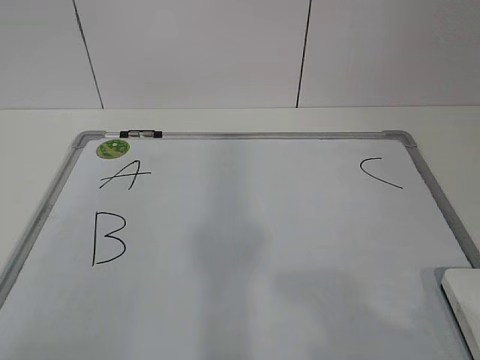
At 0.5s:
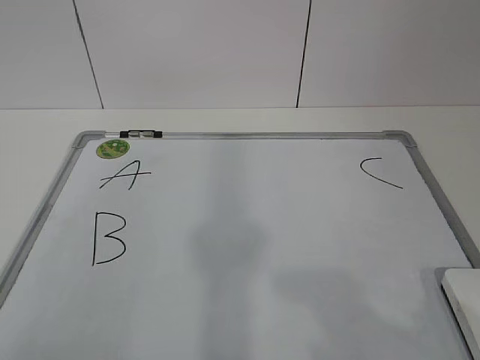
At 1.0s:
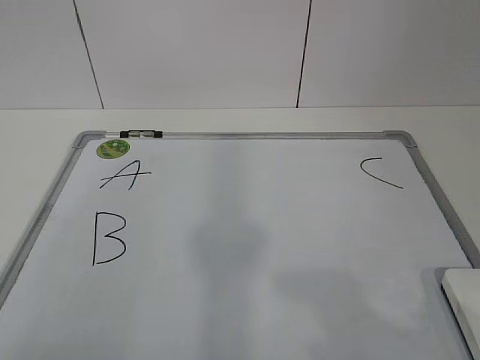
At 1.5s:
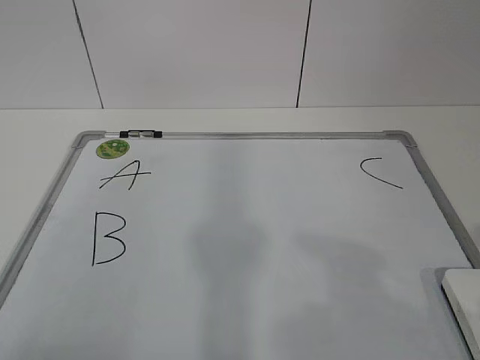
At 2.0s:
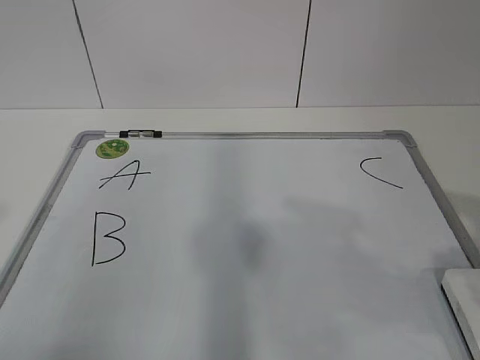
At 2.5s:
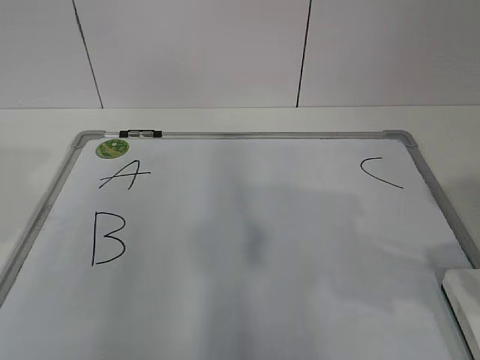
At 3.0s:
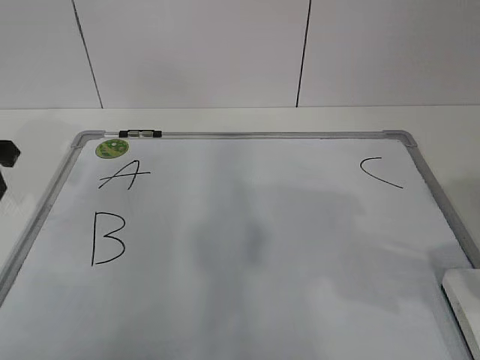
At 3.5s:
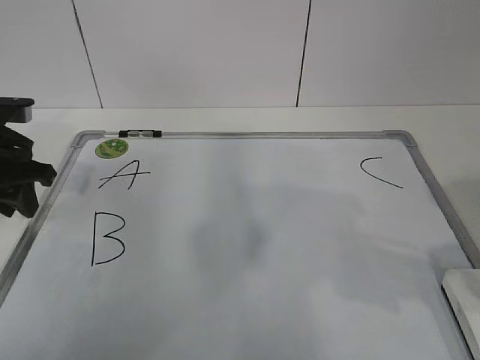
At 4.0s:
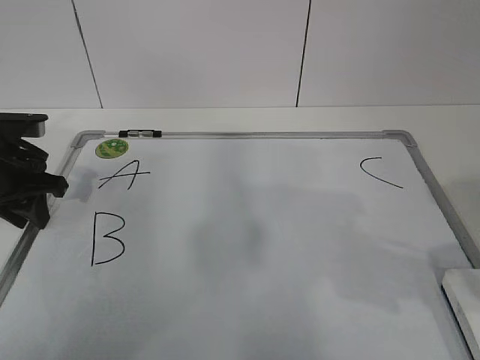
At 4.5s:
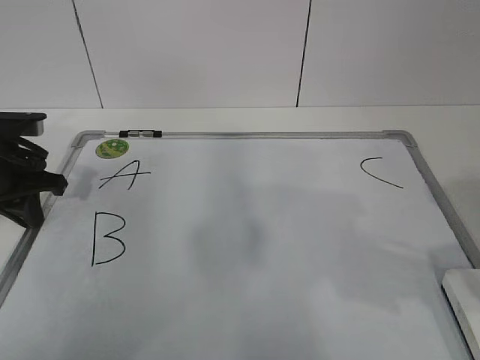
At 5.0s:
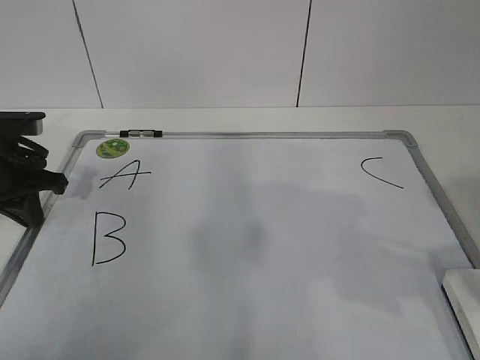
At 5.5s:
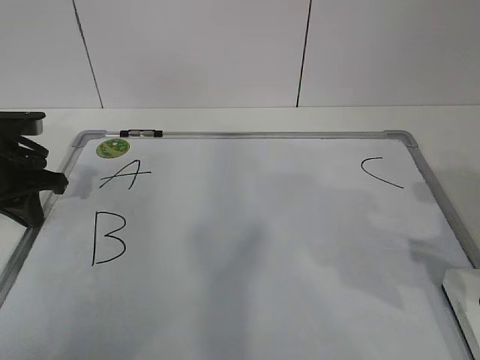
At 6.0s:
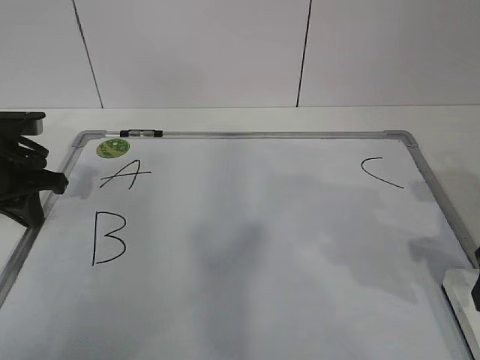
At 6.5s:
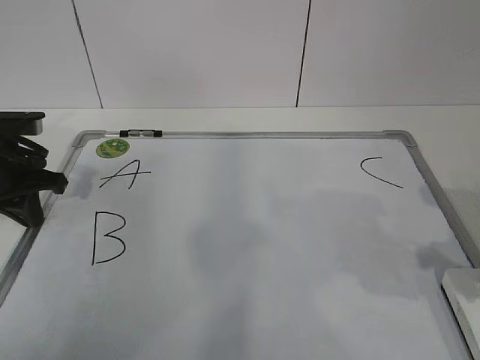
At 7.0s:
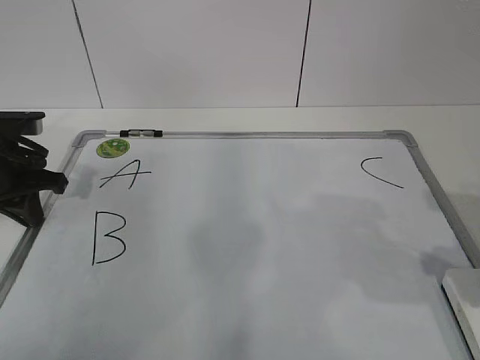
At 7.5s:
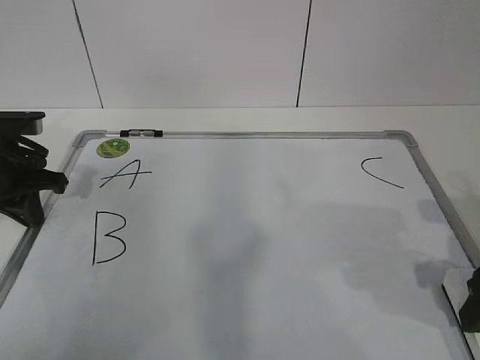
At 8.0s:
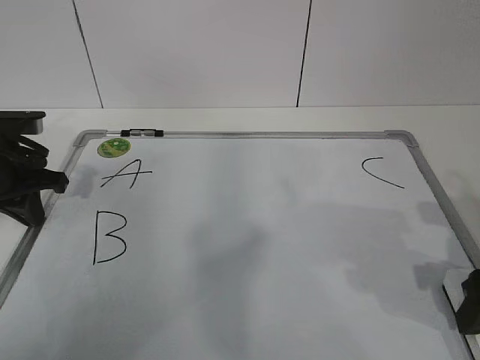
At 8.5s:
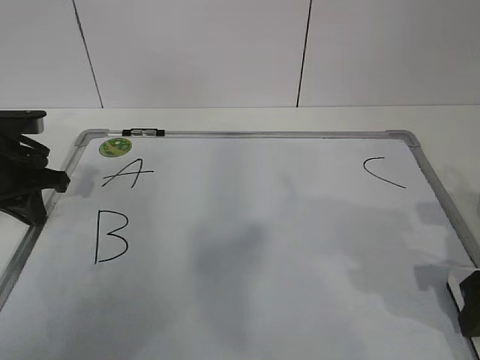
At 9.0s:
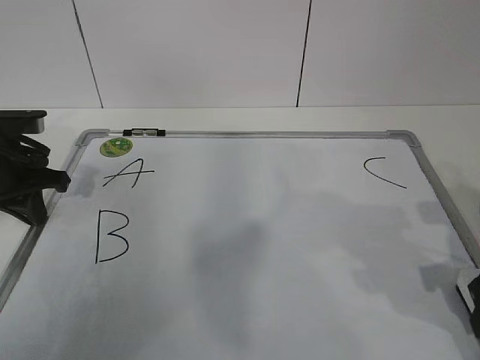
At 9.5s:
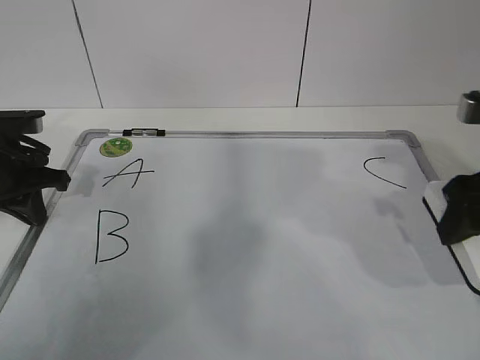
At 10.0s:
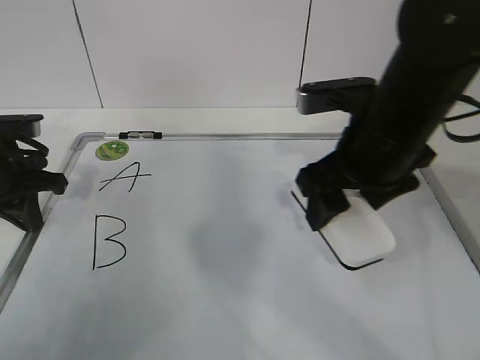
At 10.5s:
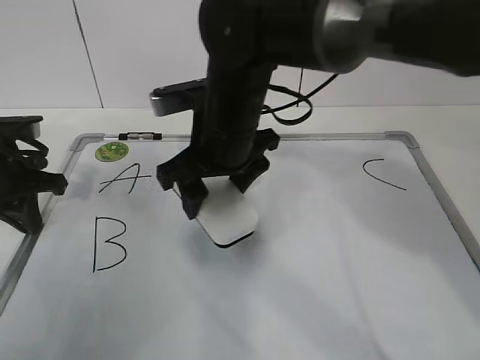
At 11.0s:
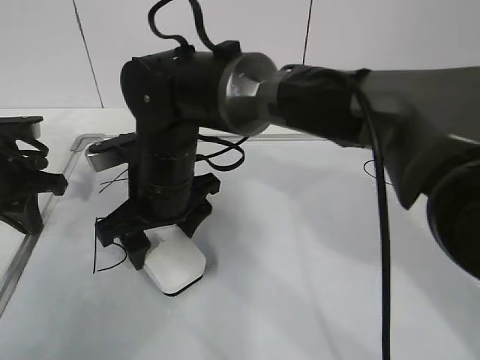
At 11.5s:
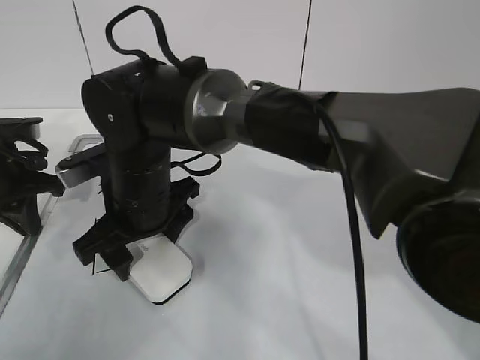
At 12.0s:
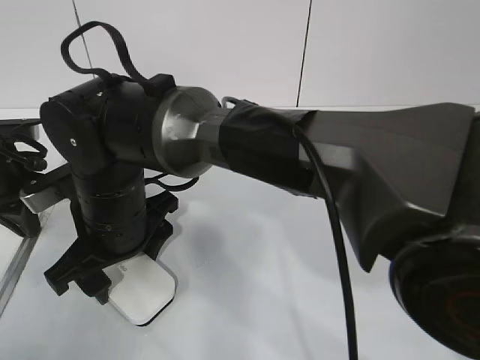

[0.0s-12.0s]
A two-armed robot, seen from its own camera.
Task of the whole recording: pick up the eraser on the blackboard and erase the letter "B".
Step, 0.0s to 3.5s: Hold the drawing board steady with your left hand.
2.0s to 4.0s: The left gripper shifts some 35 cm forward and downward. Meanwhile the right gripper ends up some 5 cm from where it was.
4.0s to 6.0s: The left gripper closes up.
6.0s to 8.0s: There are only small adjustments of the grippers.
8.0s to 10.0s: The right gripper travels to the left, forward and upward by some 20 cm, and closes up.
10.0s to 12.0s: The right gripper shifts about 25 cm to the left.

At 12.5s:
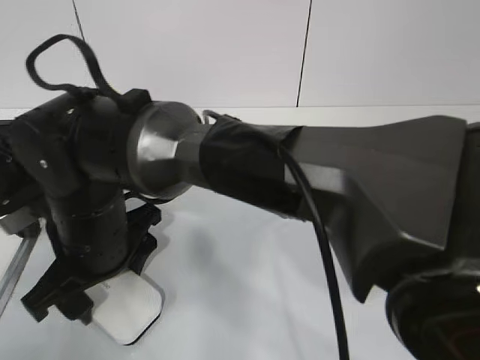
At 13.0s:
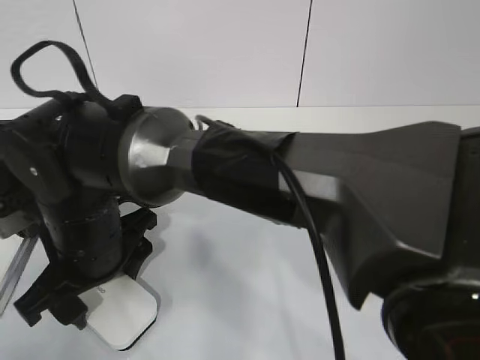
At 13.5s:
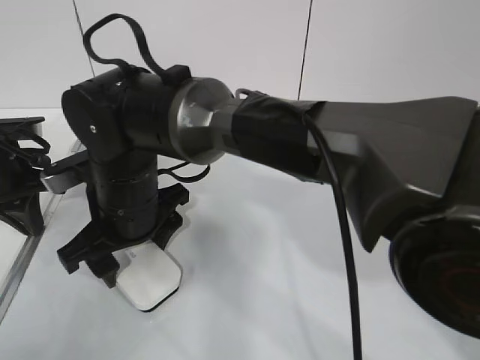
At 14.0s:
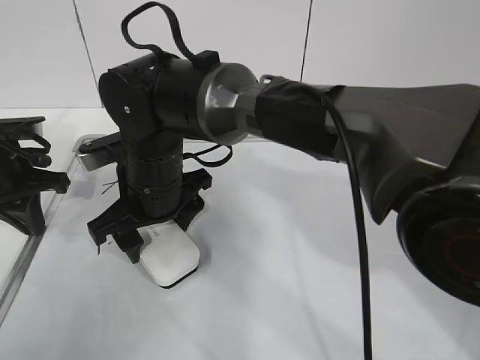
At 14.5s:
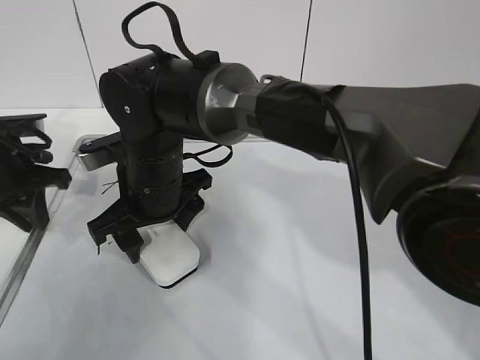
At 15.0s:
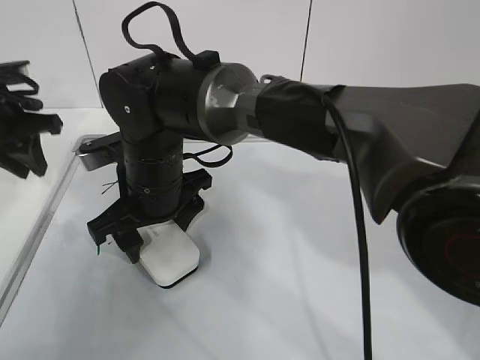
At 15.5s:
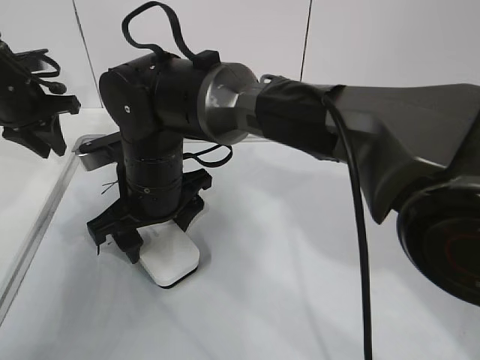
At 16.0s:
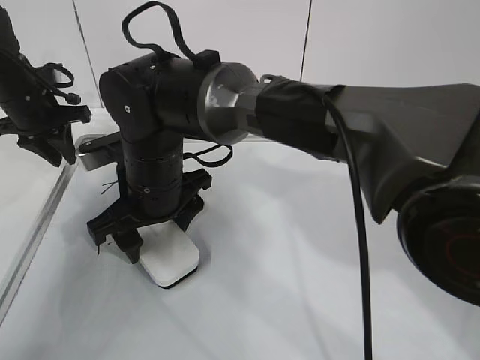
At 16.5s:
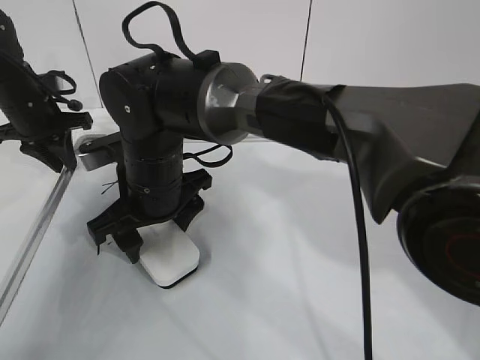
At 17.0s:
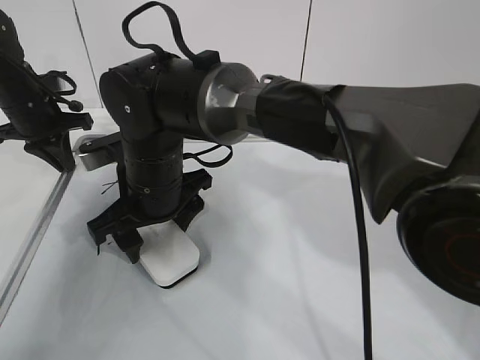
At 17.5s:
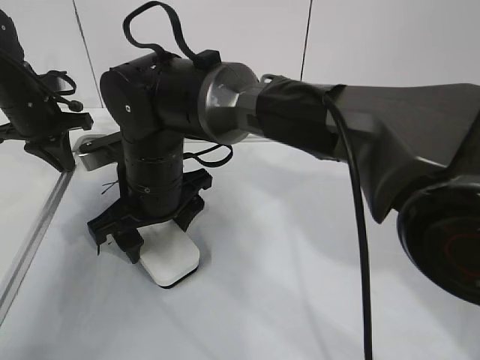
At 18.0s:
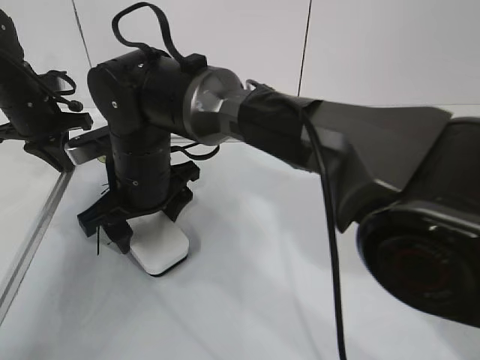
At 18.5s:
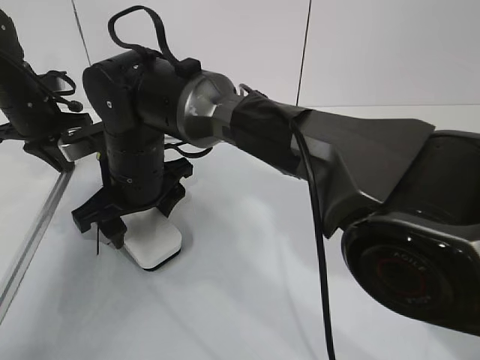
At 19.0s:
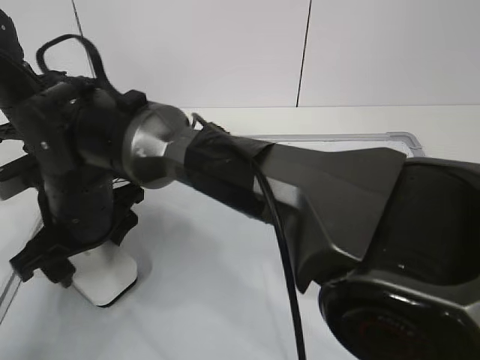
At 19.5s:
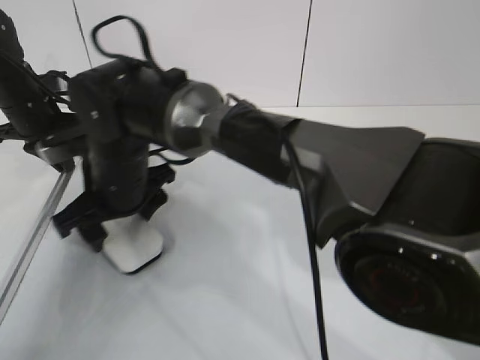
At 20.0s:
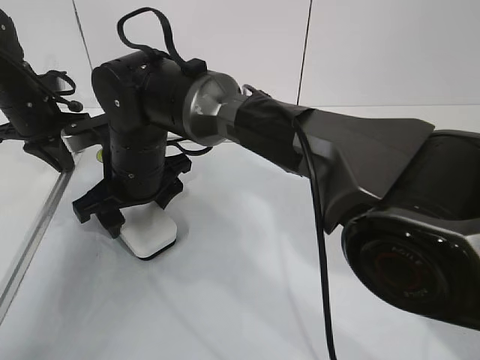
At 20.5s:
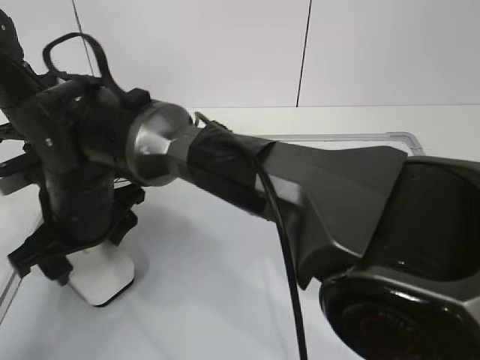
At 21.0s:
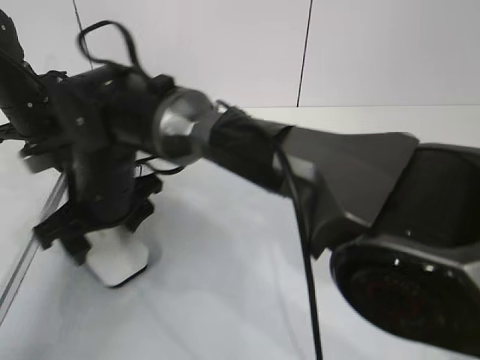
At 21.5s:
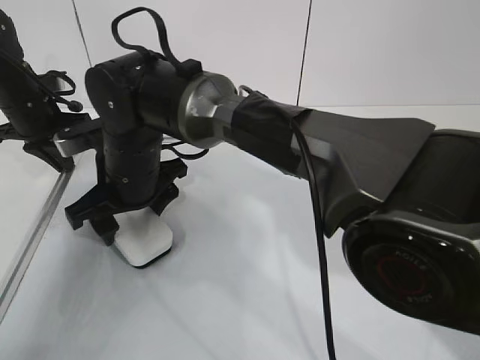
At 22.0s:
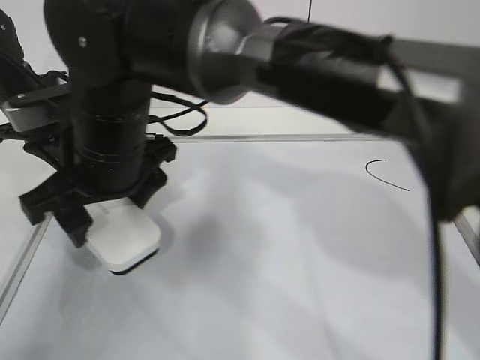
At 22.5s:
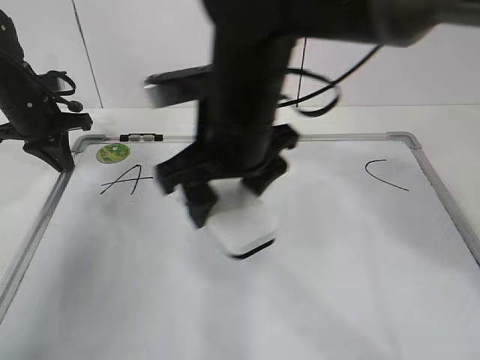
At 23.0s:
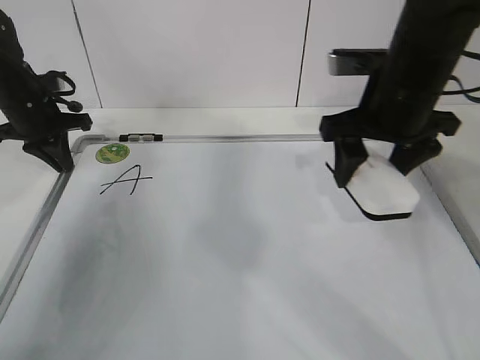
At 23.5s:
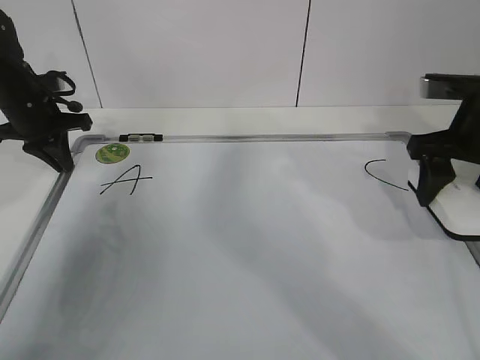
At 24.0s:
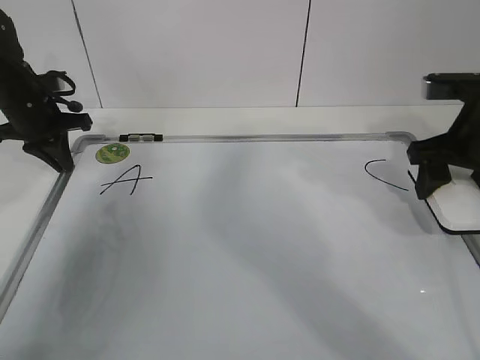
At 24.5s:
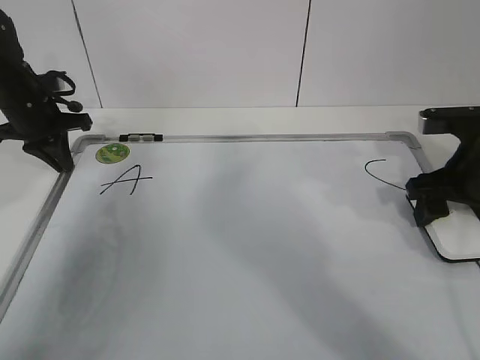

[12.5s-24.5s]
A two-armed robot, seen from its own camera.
Task of the whole recording: pick up the eraser on the blackboard and erase the letter "B".
Step, 18.0s to 21.5s: Put down the eraser with your right hand.
12.5s to 14.5s: The left gripper opens. The right gripper travels forward by some 5 cm.
14.5s to 16.5s: The left gripper travels forward by about 10 cm.
16.5s to 18.5s: The left gripper closes up.
18.5s to 20.5s: The right gripper moves forward and backward over some 5 cm, changing direction 2 times.
20.5s to 22.5s: The right gripper heads to the right and upward, covering about 20 cm.
22.5s to 24.5s: The right gripper travels to the right by approximately 25 cm.

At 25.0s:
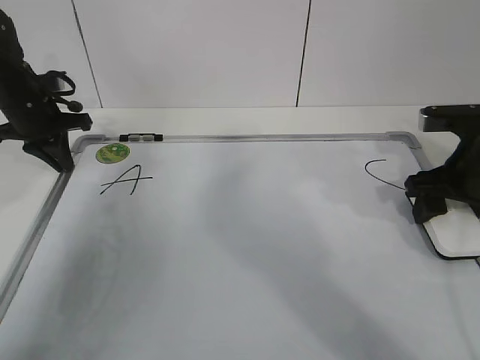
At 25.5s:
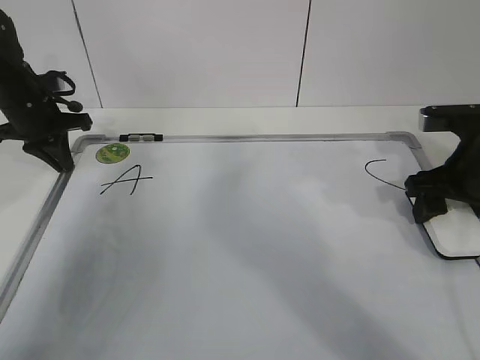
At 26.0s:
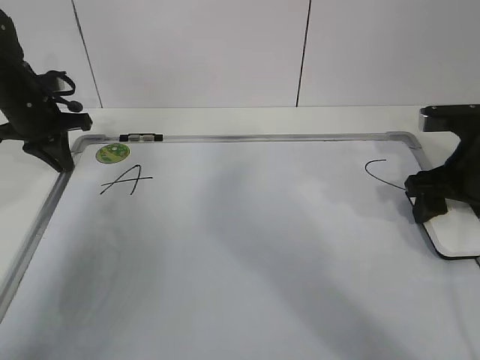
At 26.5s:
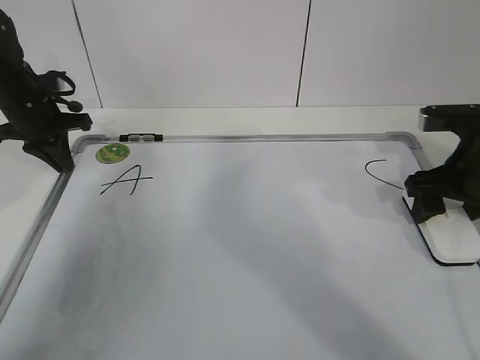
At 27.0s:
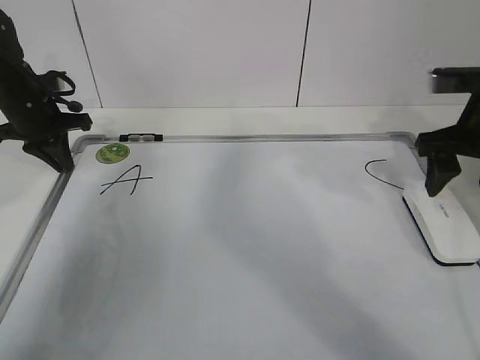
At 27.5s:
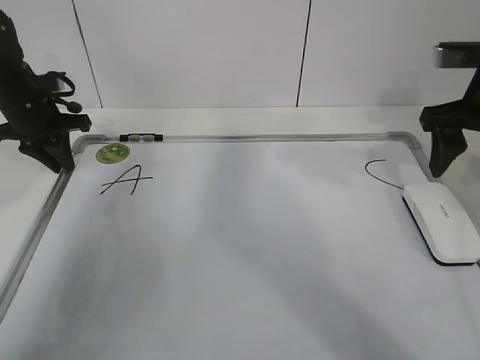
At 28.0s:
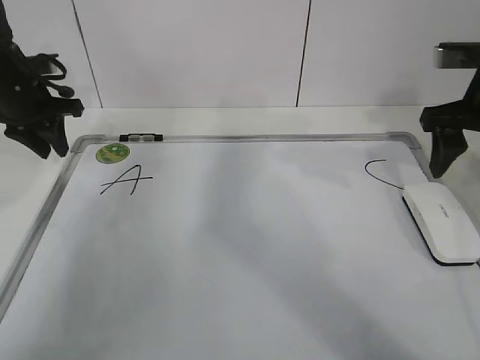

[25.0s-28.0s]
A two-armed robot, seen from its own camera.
Task of the whole recording: pick up the eraser on the blackboard and erase the letter "B".
25.0s to 26.5s: The right gripper opens its fingers.
26.5s to 28.0s: The left gripper opens. Meanwhile the right gripper shifts roughly 10 cm upward.
